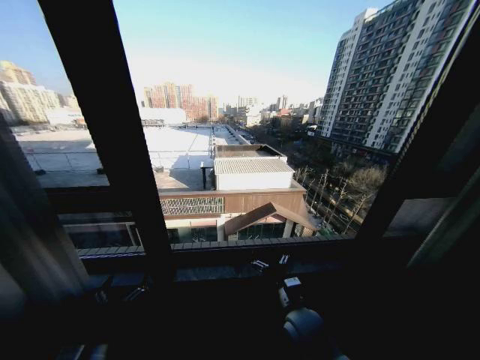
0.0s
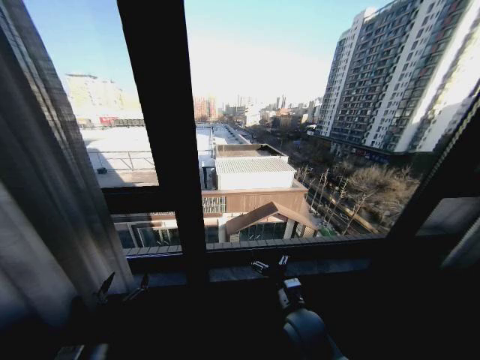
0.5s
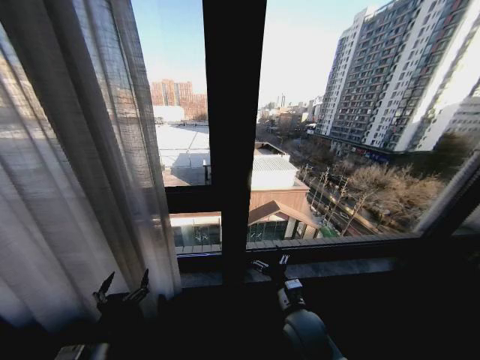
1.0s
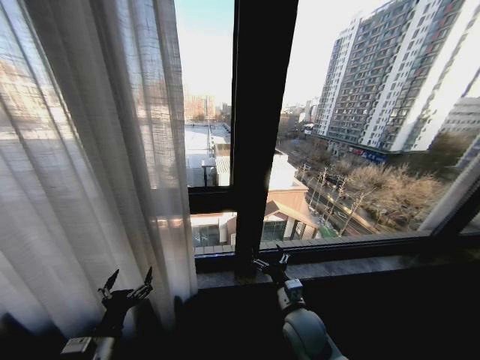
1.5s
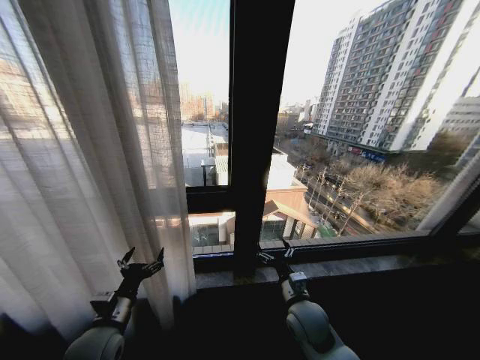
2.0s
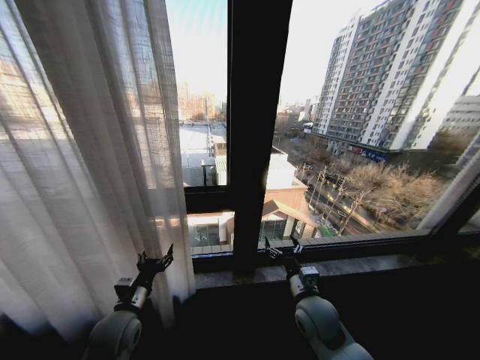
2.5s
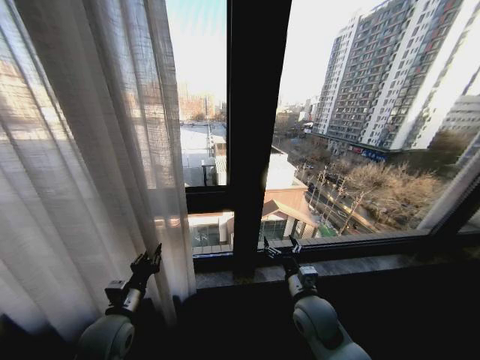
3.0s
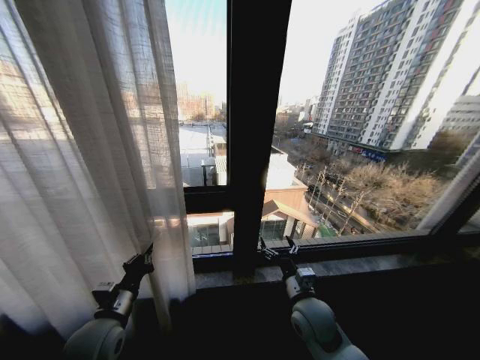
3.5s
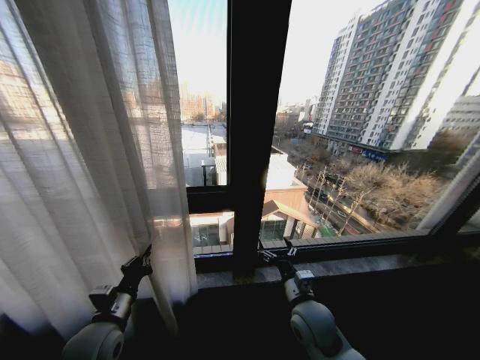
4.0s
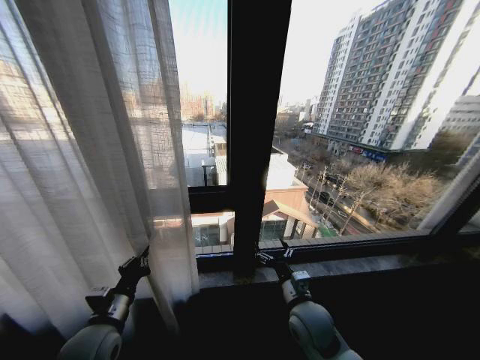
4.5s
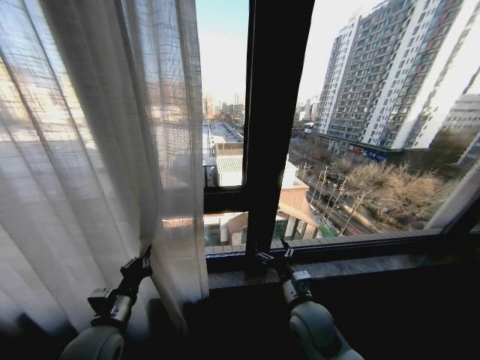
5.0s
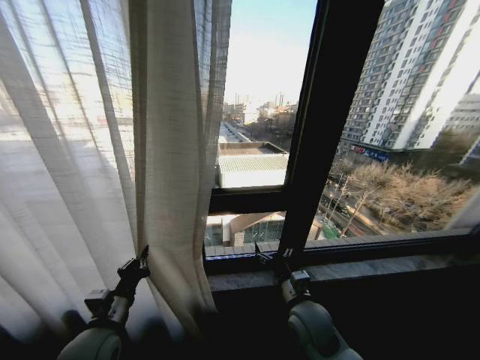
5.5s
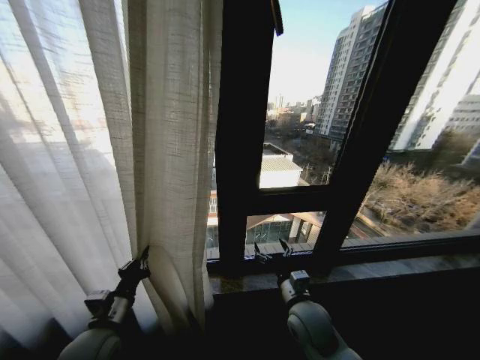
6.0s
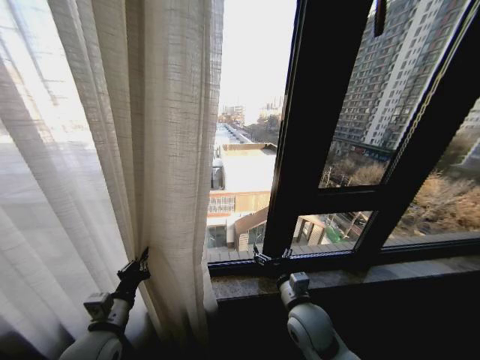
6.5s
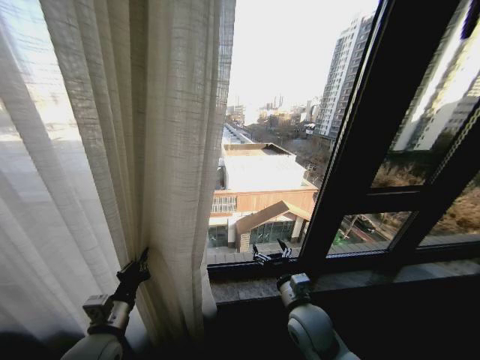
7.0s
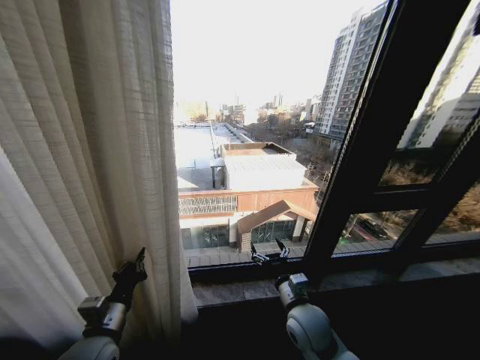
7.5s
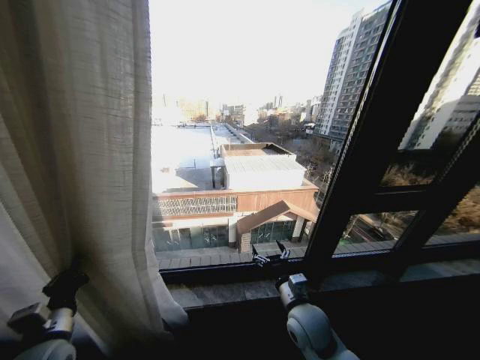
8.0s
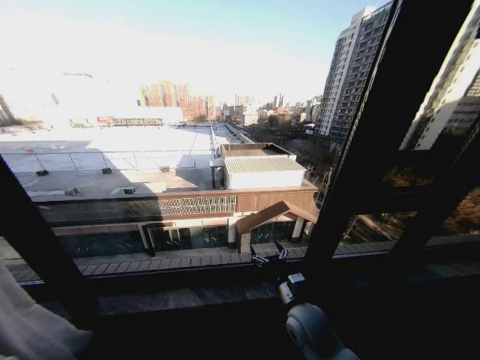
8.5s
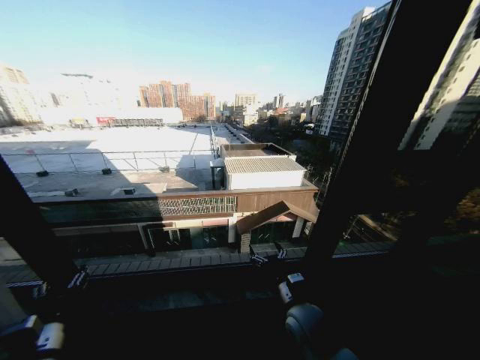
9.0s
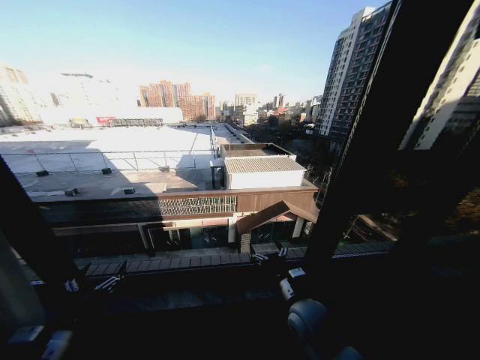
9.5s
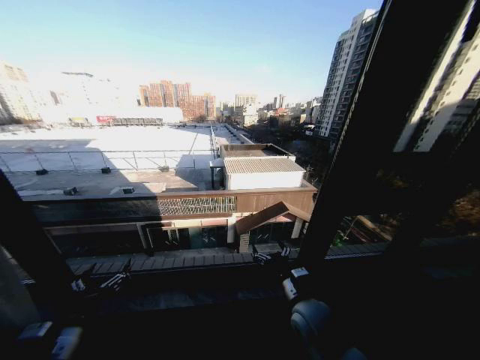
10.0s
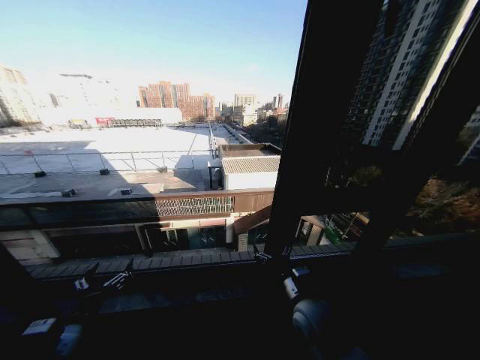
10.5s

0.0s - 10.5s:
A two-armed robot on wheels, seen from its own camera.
Task of the whole recording: Open the curtains by pulling them apart, changing their state from closed to fully open.
0.0s - 2.0s: The left gripper travels forward by about 10 cm.
2.0s - 4.0s: The left gripper closes.
6.5s - 8.5s: The left gripper heads to the left, covering some 20 cm.
8.5s - 10.5s: The left gripper heads to the right, covering about 15 cm, and opens its fingers.

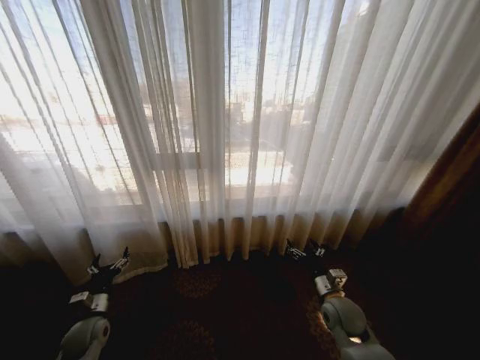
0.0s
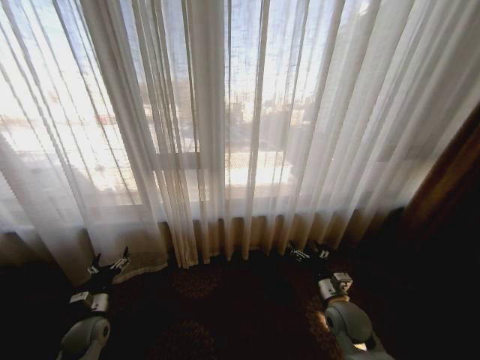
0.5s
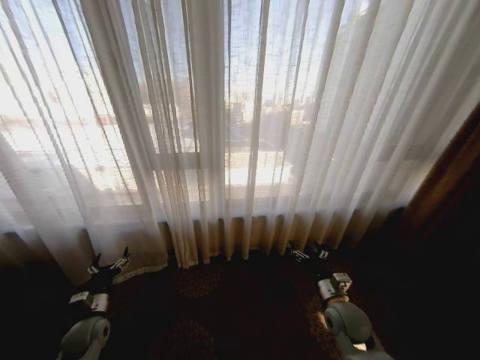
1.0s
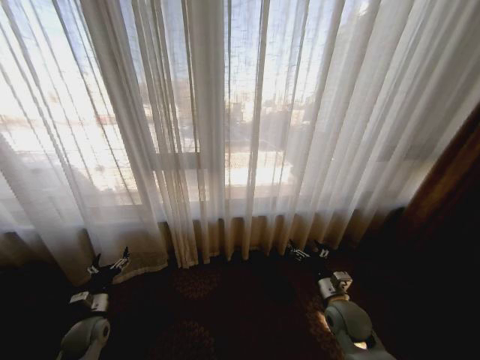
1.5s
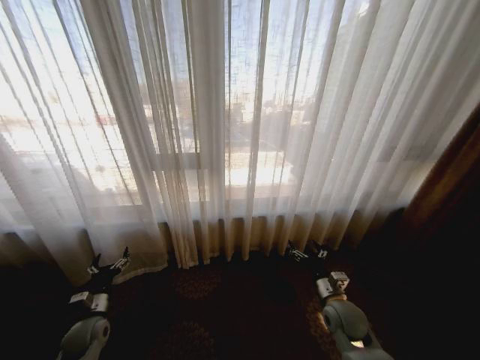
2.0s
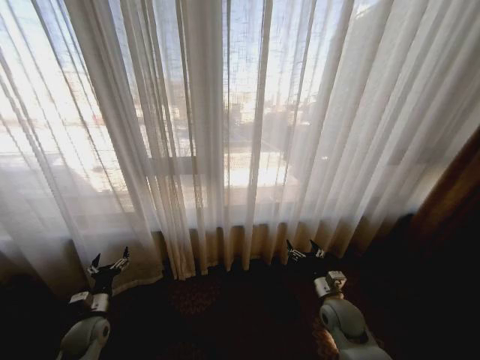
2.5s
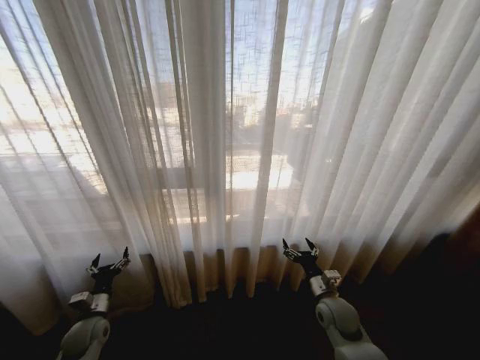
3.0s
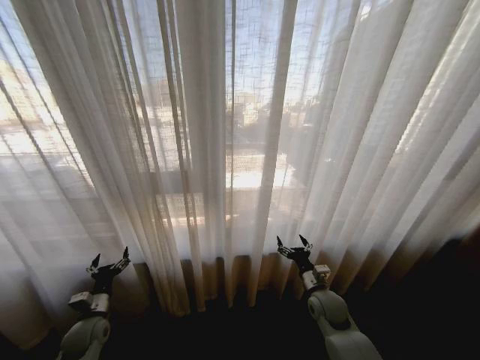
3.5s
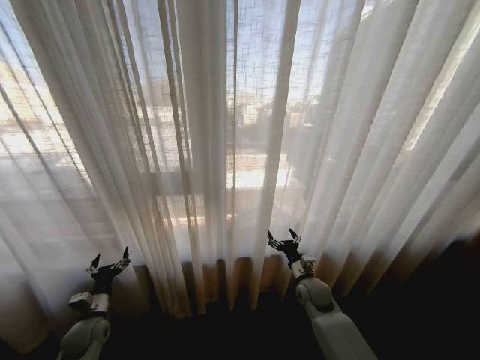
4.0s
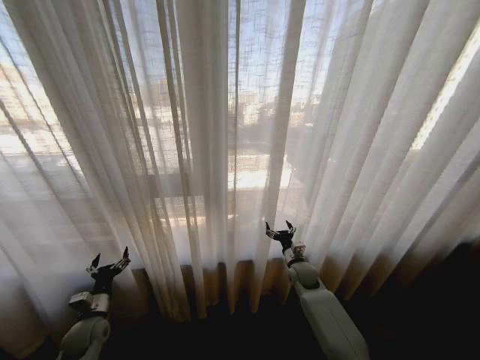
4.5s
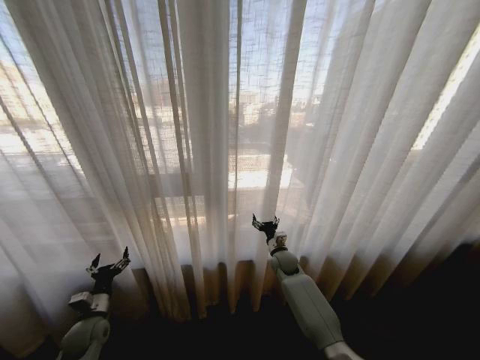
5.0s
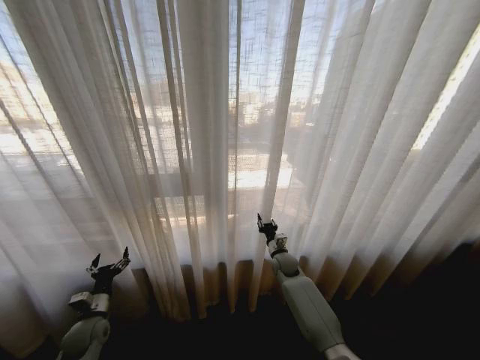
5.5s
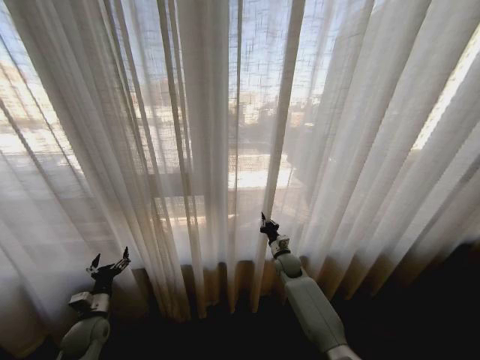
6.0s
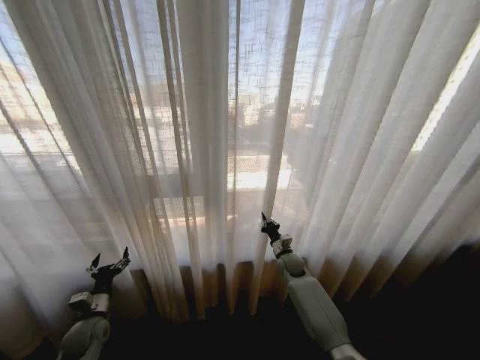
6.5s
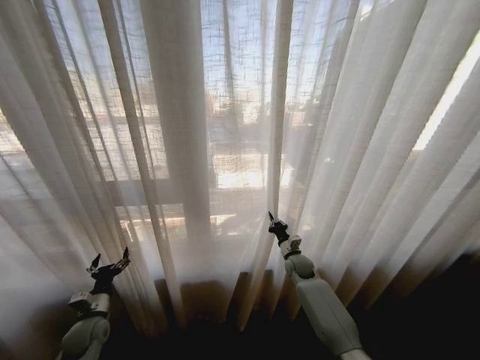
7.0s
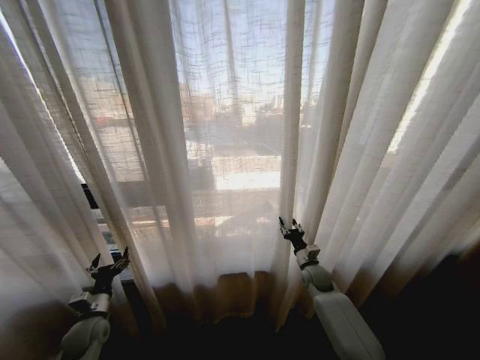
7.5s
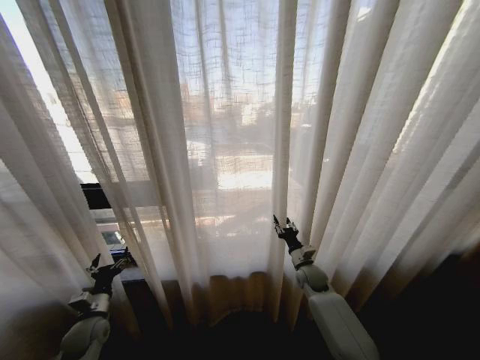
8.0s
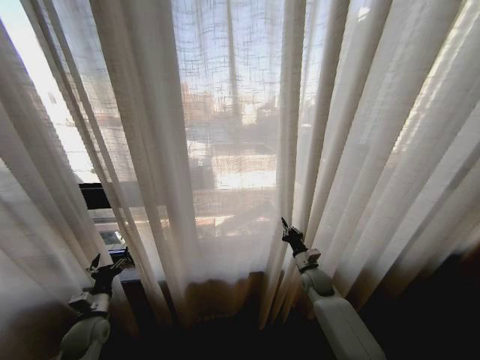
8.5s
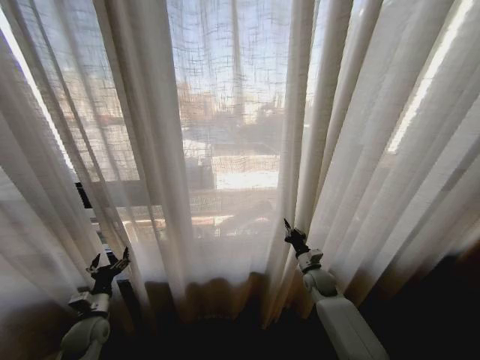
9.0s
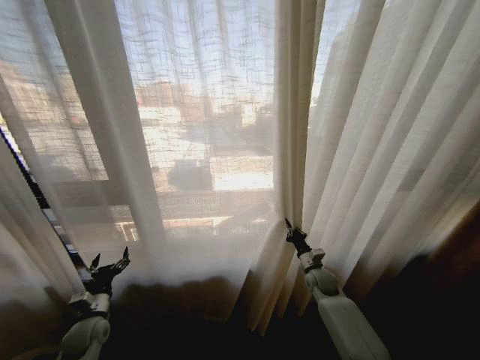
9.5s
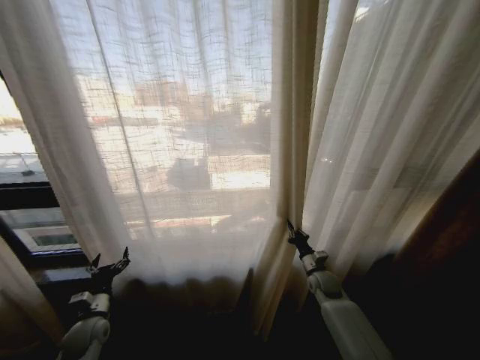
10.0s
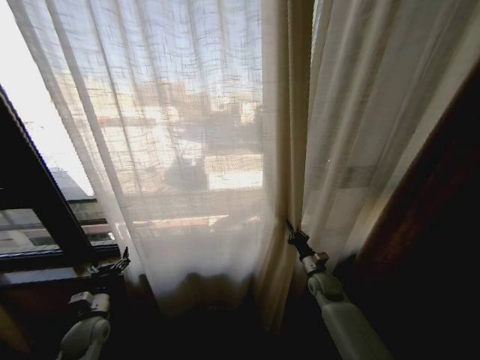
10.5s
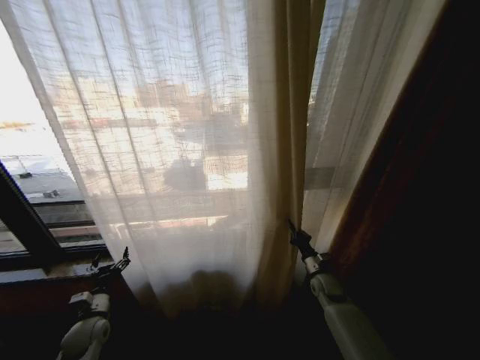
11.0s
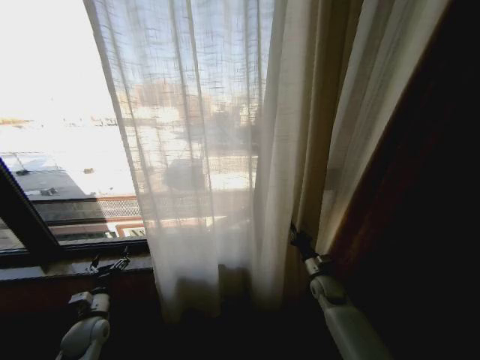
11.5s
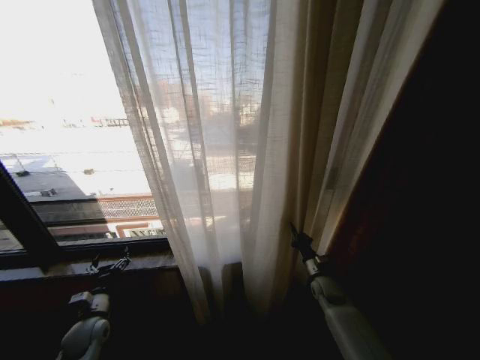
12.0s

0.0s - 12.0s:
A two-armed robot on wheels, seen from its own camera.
Task of the whole recording: Open the curtains by pulling them apart, changing their state from closed to fully open.
2.0s - 4.0s: The right gripper moves forward, some 10 cm.
4.0s - 6.0s: The right gripper travels forward by some 10 cm, and closes its fingers.
6.0s - 8.0s: The right gripper goes some 5 cm to the right, and opens up.
8.0s - 10.0s: The right gripper closes its fingers.

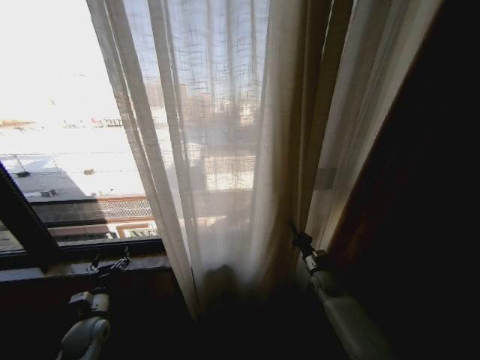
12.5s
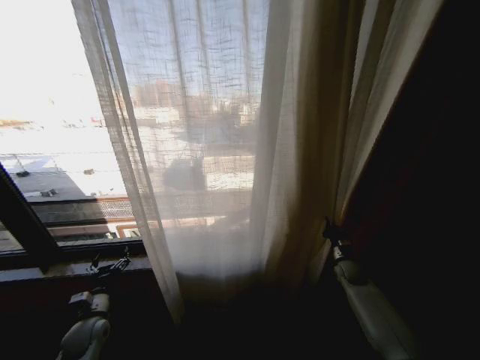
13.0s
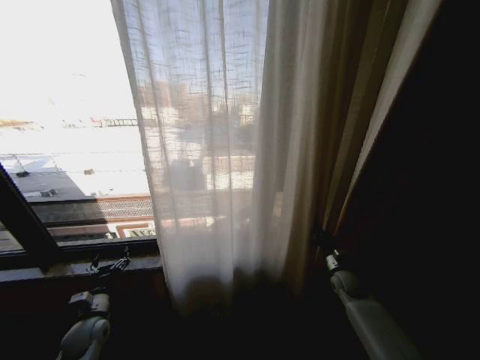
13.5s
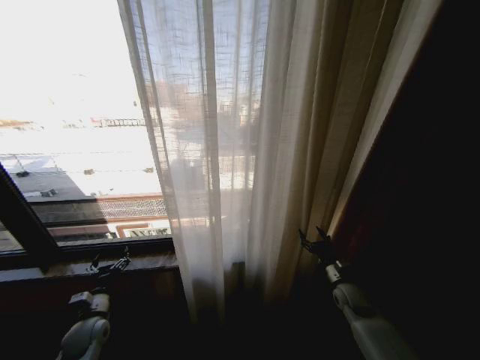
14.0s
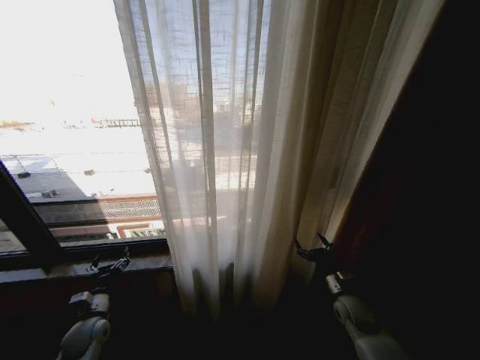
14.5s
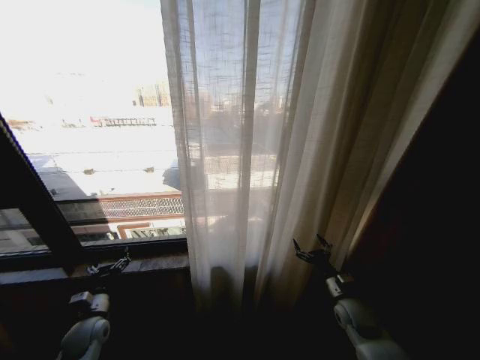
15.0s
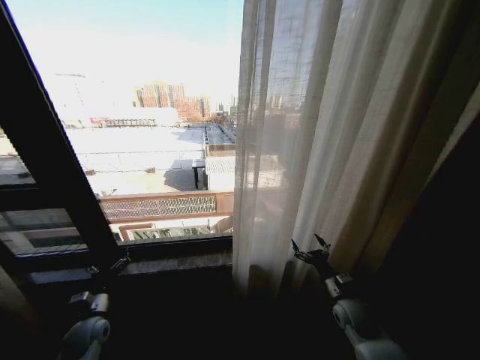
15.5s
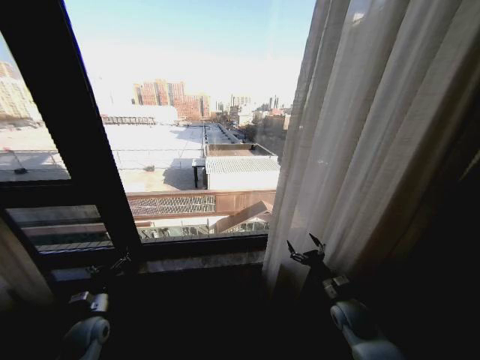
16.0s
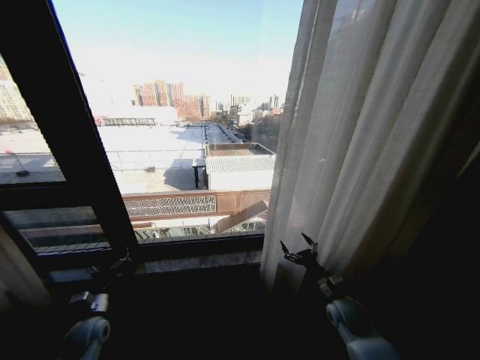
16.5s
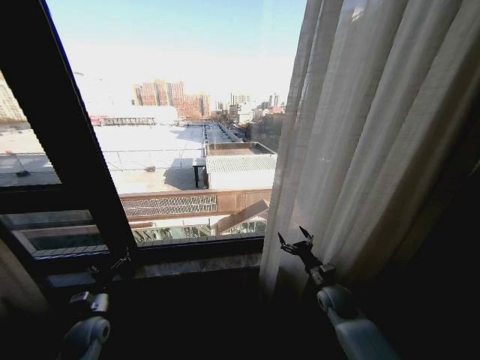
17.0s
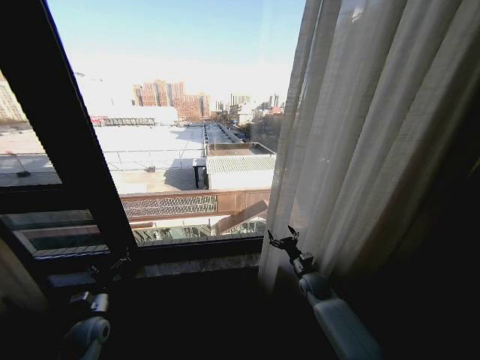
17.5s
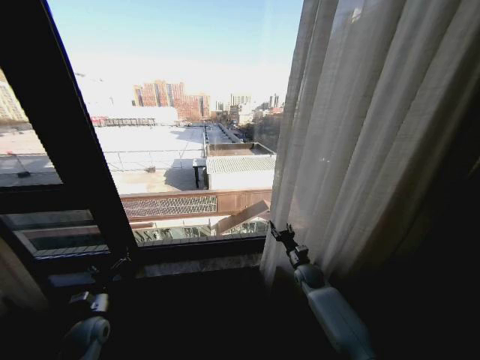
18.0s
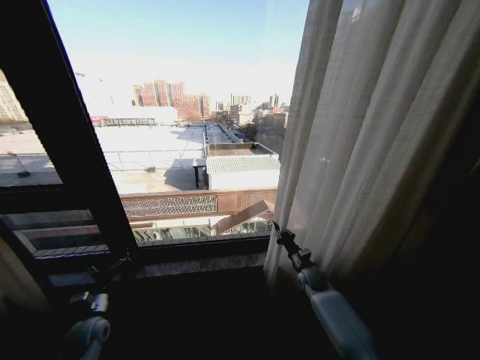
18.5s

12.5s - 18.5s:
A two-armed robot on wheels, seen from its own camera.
Task of the whole recording: Open the curtains by pulling them apart, changing their state from closed to fully open.
12.5s - 14.5s: The right gripper heads backward, covering about 10 cm, and opens.
16.5s - 18.5s: The right gripper travels forward by some 15 cm, and closes its fingers.
